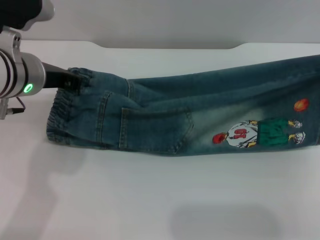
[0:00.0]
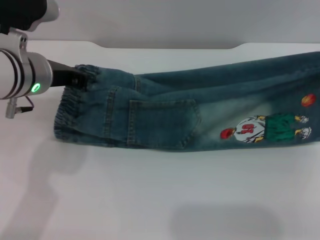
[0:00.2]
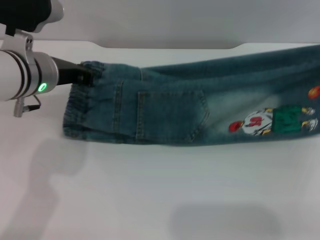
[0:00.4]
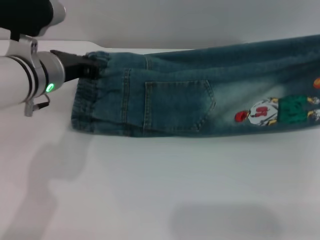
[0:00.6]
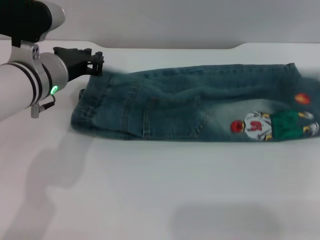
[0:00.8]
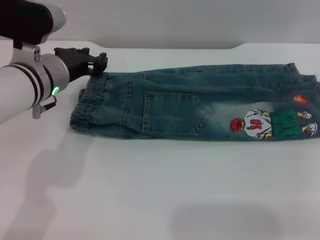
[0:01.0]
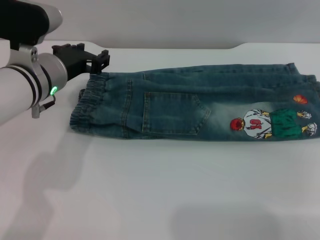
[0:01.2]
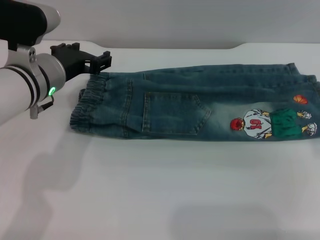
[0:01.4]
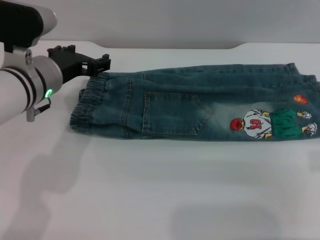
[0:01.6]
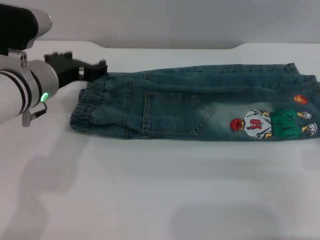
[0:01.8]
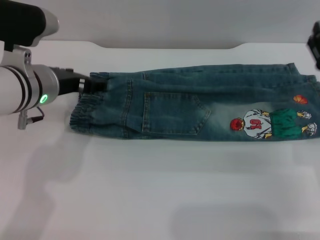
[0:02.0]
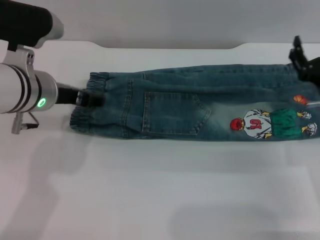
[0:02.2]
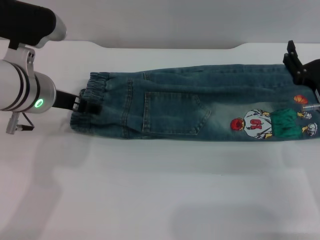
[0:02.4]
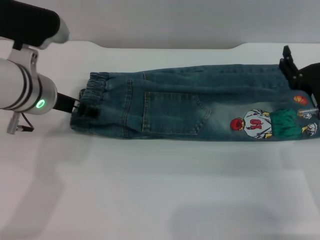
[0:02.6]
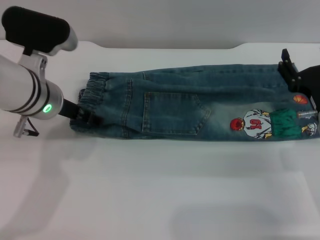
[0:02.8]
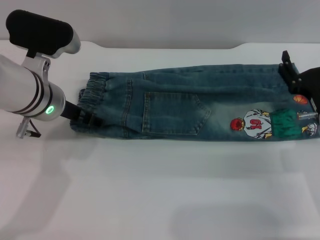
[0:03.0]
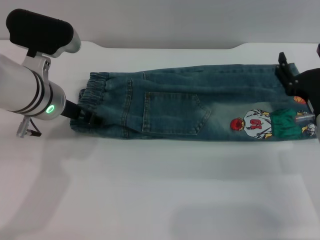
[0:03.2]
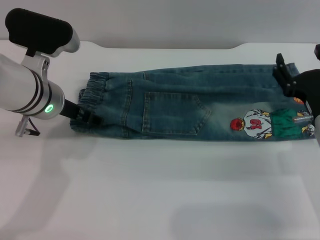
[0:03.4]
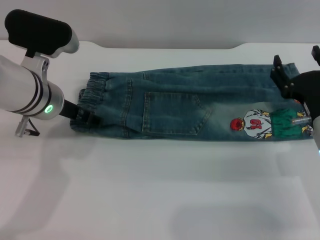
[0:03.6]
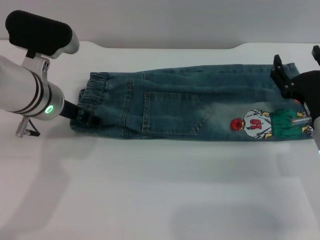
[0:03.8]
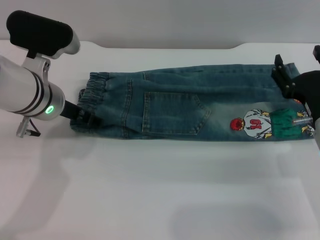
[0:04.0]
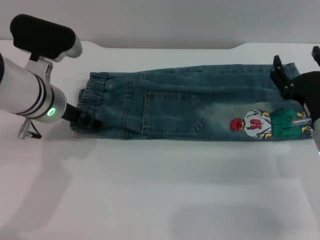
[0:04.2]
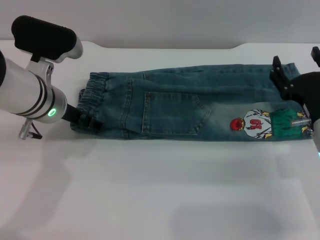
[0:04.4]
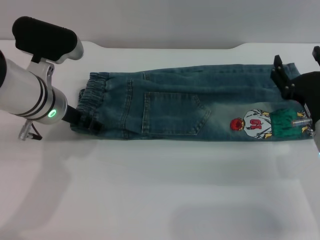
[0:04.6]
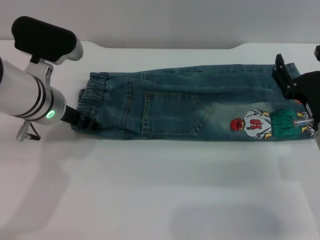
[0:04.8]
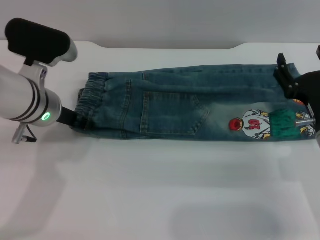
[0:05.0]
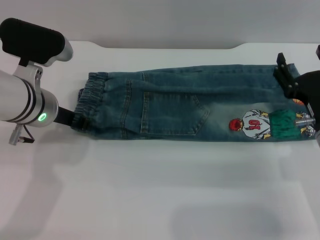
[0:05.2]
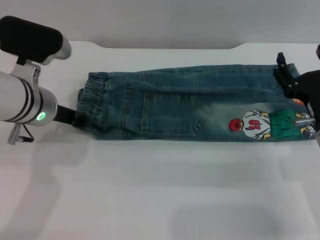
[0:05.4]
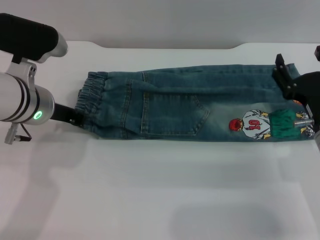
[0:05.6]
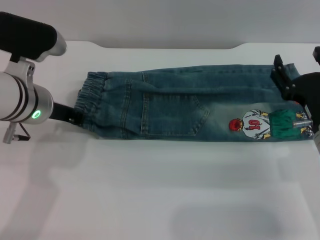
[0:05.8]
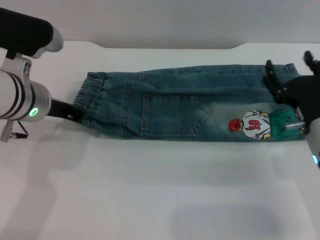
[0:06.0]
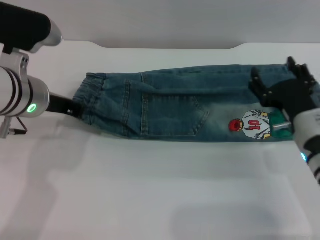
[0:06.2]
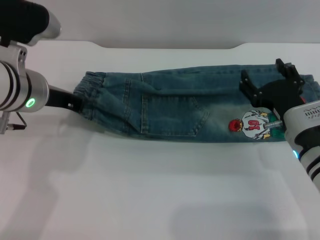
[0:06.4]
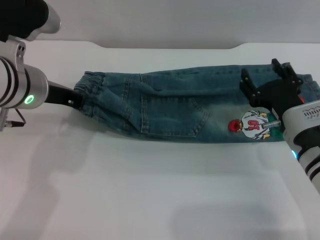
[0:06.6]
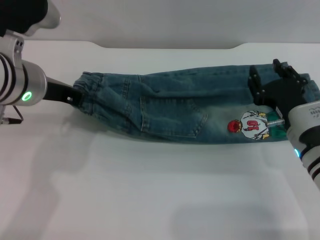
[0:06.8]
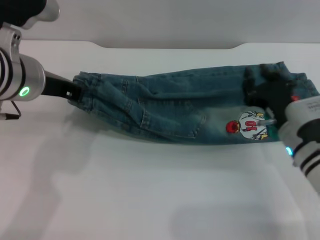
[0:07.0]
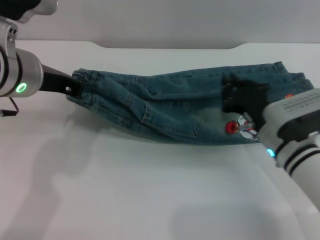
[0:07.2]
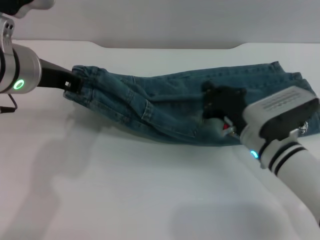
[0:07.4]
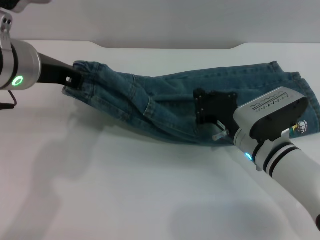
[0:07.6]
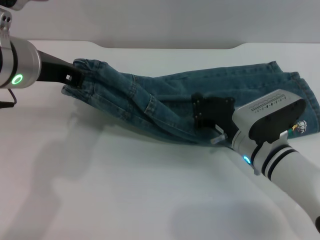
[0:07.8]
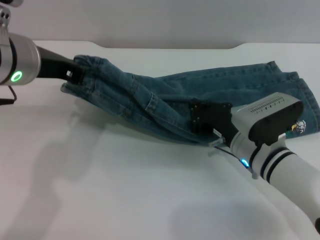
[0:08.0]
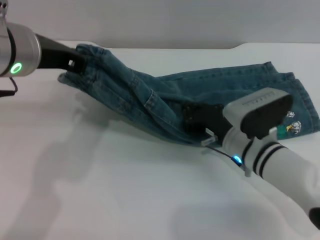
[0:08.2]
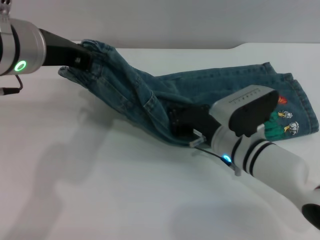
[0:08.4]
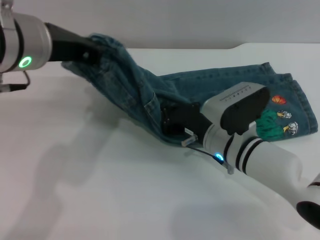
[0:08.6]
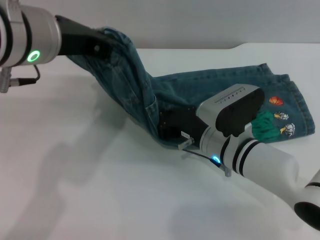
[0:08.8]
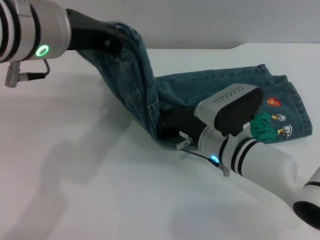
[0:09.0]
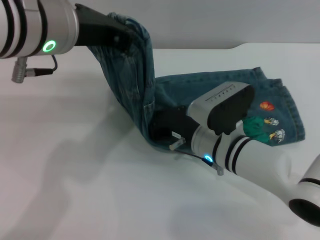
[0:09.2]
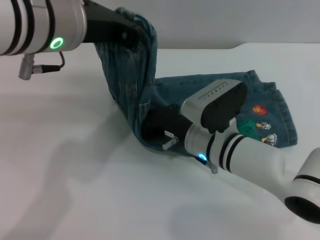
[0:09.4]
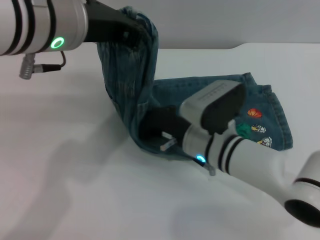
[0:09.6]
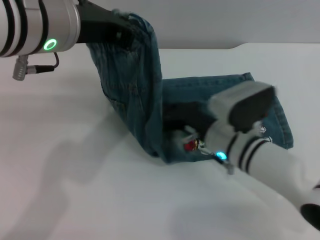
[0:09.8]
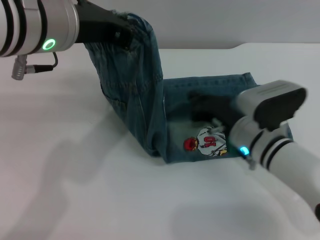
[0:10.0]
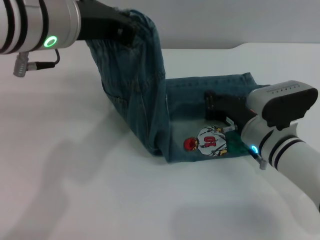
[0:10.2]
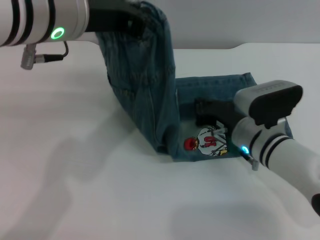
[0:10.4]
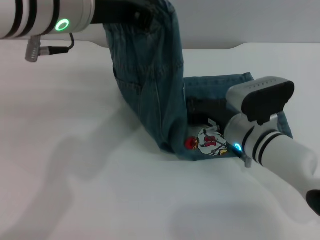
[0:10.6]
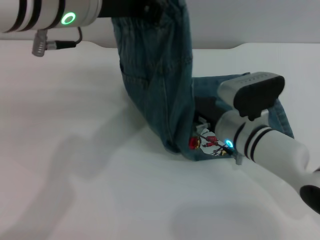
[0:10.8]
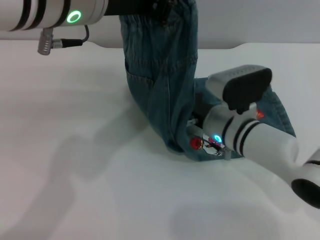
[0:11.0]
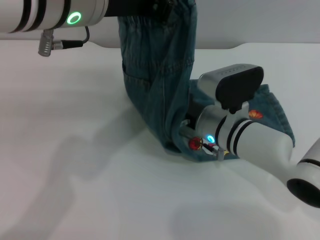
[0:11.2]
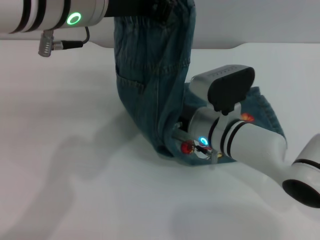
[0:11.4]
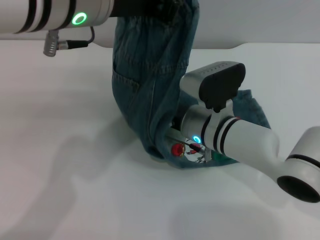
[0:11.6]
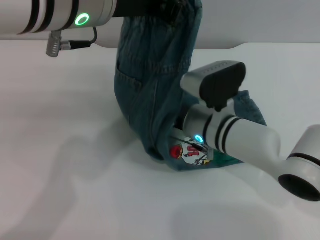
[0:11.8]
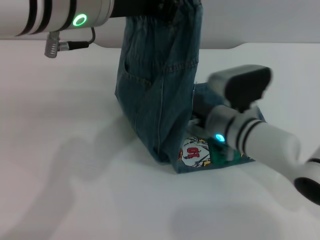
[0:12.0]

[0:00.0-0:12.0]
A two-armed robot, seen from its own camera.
Step, 0:00.0 to 0:03.4: Fold the bottom of the pants upward with both grippers.
0:00.0 to 0:01.6: The left gripper opens. The right gripper ends up approximately 5 cm from where it was, and opens up.
0:01.6 to 0:03.0: The right gripper moves downward, some 10 cm.
0:03.0 to 0:04.4: Both grippers stay put.
0:04.4 to 0:06.0: The left gripper closes.
0:06.0 to 0:07.6: The left gripper goes about 10 cm upward. Meanwhile the right gripper travels to the left by approximately 5 cm, and closes up.
0:07.6 to 0:09.0: The left gripper changes place by about 5 cm. Meanwhile the right gripper travels to the left by about 5 cm.
0:09.0 to 0:10.4: The right gripper goes approximately 5 cm to the right.

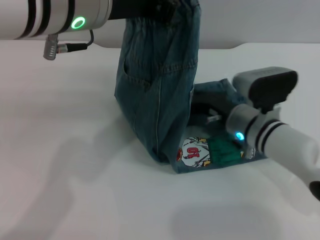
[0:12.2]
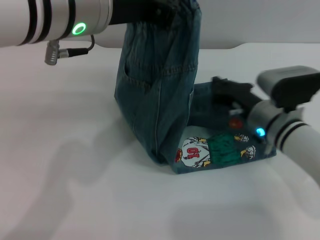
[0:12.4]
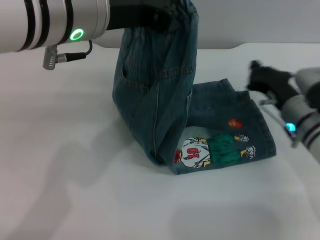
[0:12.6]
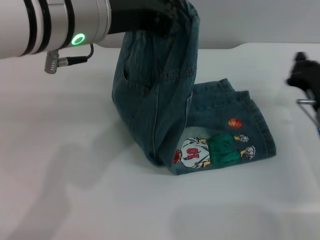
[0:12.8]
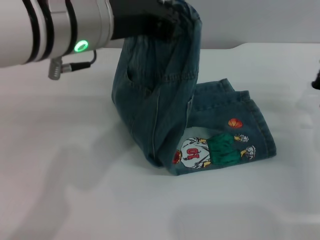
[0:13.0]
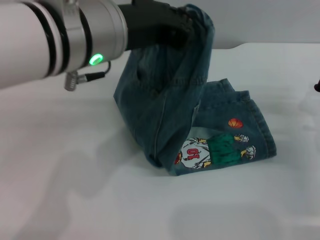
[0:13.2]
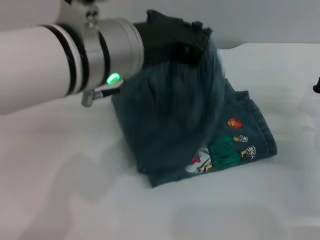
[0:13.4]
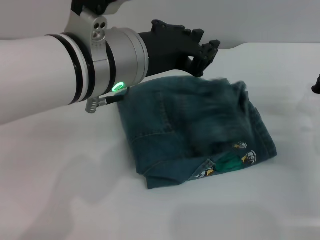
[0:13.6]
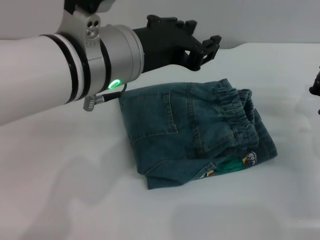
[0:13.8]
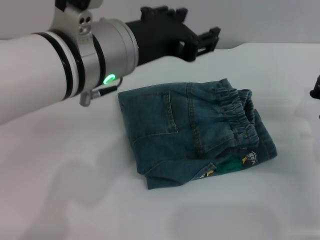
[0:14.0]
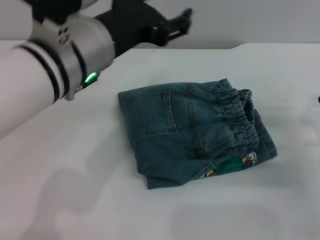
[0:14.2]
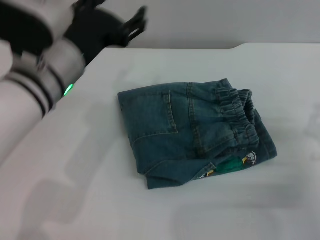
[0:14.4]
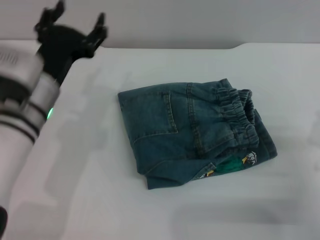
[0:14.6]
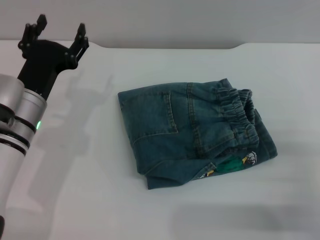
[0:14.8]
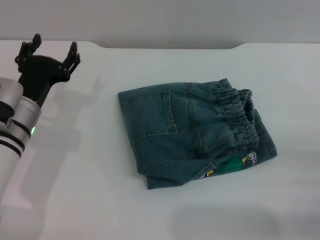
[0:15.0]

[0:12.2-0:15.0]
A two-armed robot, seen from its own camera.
0:12.2 to 0:13.6: The left gripper goes approximately 5 cm downward, while the right gripper moves to the right, about 15 cm.
0:13.6 to 0:15.0: The left gripper travels downward and to the left by approximately 25 cm, and opens its fingers. Meanwhile the right gripper goes about 10 cm backward.

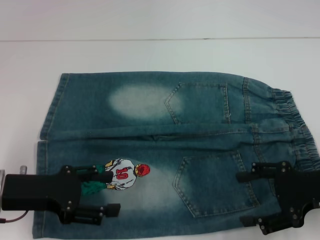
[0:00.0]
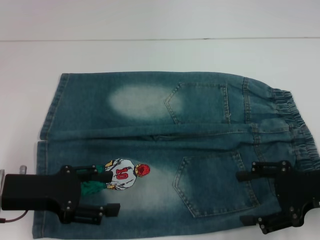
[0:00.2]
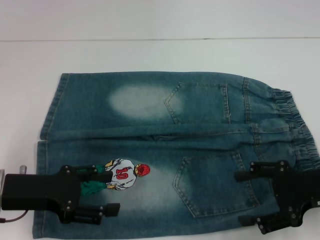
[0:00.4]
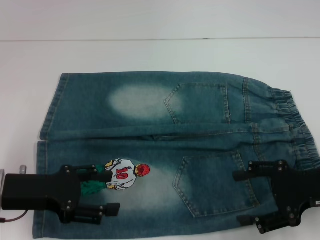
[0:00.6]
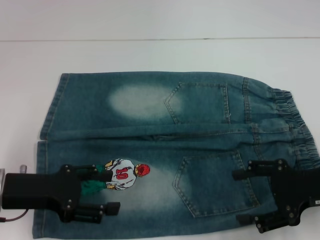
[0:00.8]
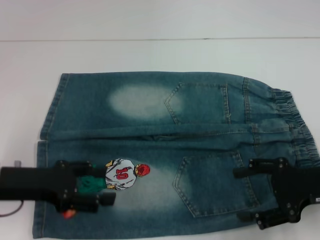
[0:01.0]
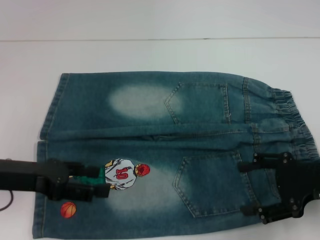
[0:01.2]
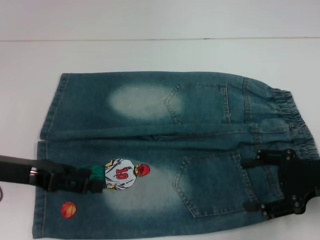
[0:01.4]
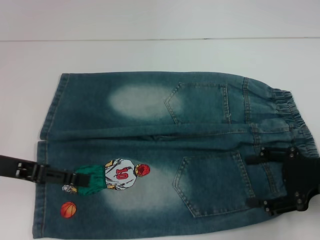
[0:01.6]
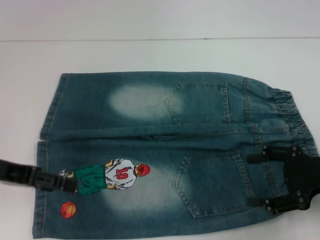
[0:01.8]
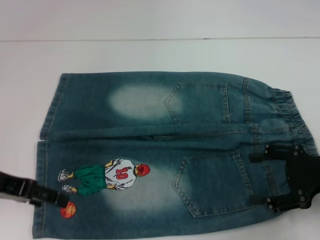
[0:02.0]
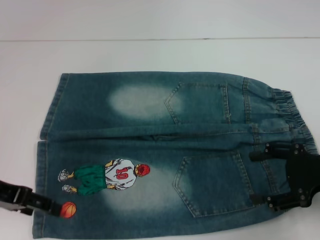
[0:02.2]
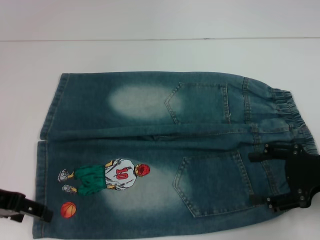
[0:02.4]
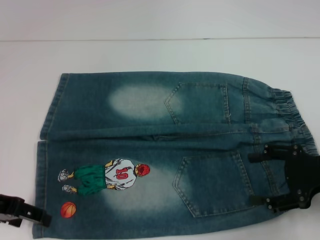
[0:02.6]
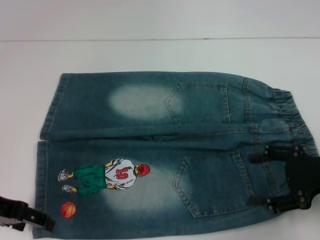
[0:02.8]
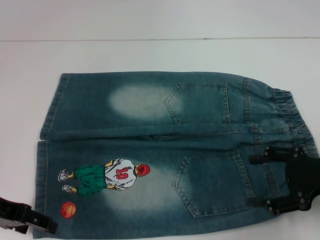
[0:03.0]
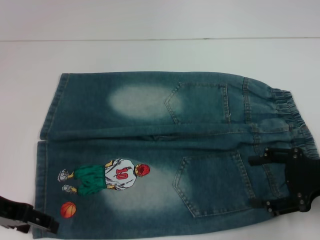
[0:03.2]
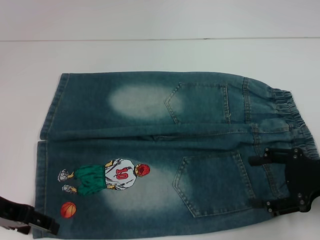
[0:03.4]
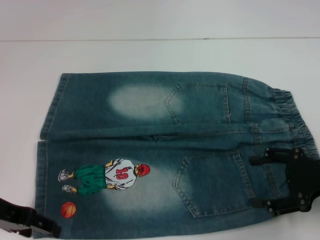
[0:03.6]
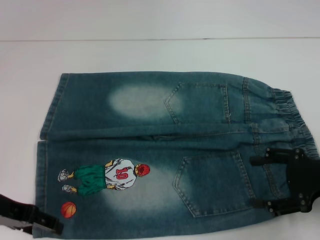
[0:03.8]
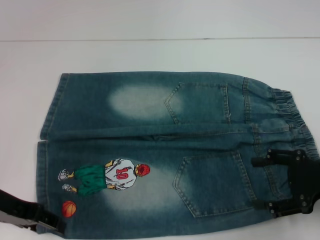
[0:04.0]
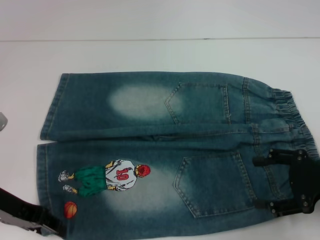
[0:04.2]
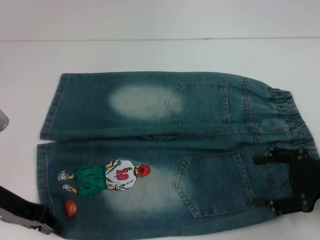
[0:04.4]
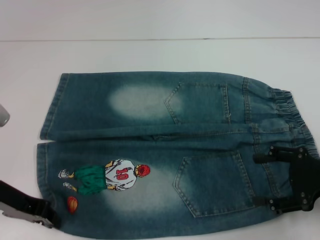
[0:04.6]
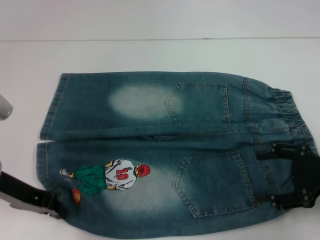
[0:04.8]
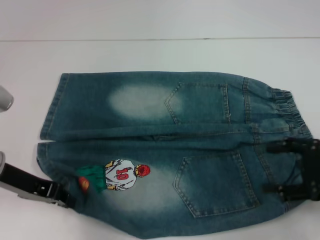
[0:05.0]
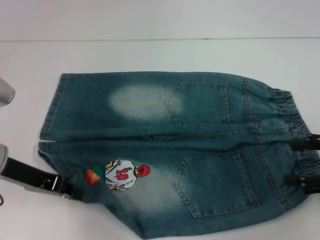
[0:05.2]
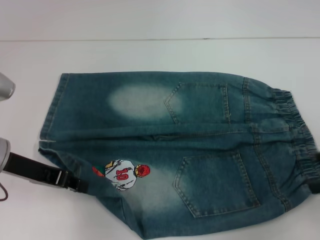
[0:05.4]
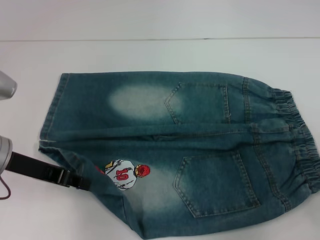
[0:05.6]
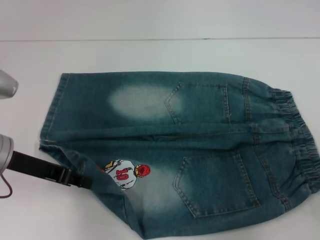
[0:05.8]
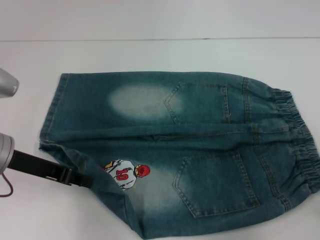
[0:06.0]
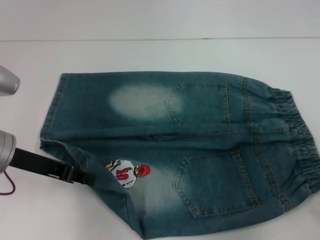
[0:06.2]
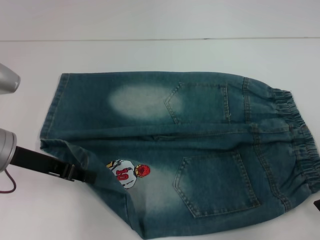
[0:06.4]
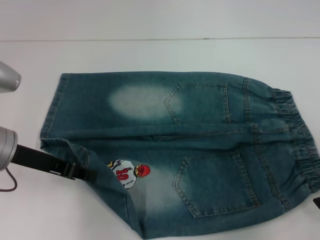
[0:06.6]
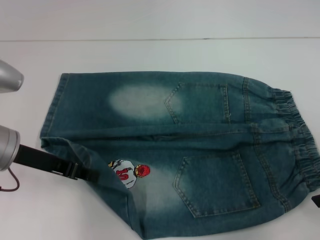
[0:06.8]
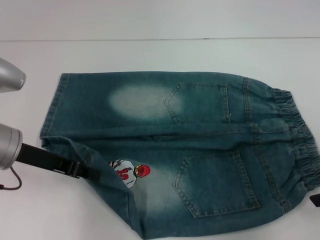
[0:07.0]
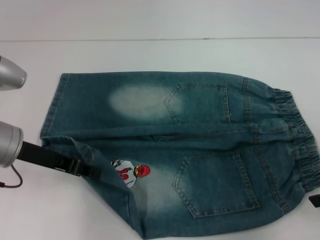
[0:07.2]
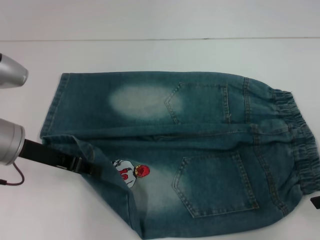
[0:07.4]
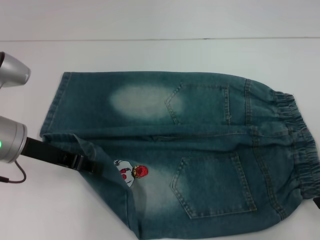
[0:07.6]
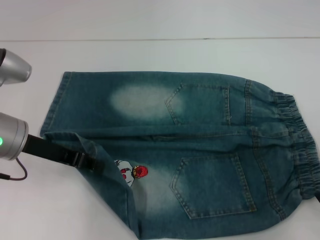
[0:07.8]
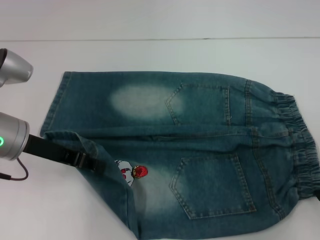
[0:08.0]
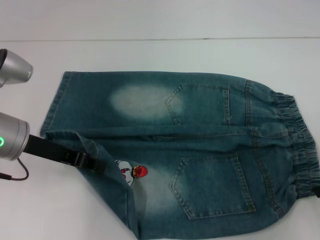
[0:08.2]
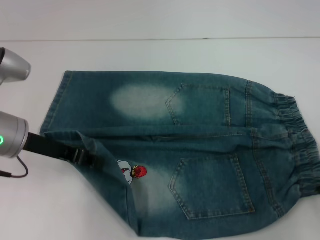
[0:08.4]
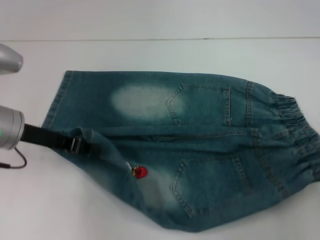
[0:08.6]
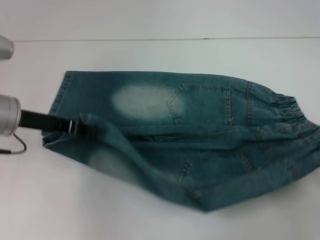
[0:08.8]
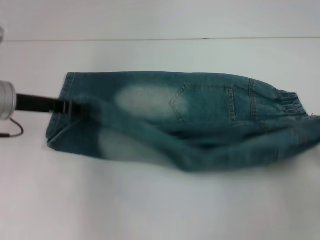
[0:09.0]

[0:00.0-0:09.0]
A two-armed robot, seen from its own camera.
Step, 0:00.0 to 0:04.2: Grab the lower left pant leg with your left hand.
Step, 0:04.4 to 0:08.2: Hold the lower right waistband with your right hand.
0:00.0 to 0:01.6: The left gripper shifts about 5 cm upward.
0:03.0 to 0:04.4: The left gripper closes up.
0:04.4 to 0:06.0: The right gripper is displaced upward by some 5 cm; the left gripper closes.
0:06.0 to 0:07.6: The grippers stay close to where they were, moving slightly.
0:07.6 to 0:09.0: The right gripper closes.
